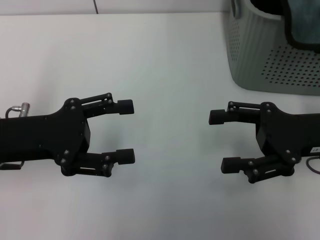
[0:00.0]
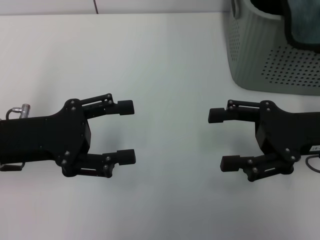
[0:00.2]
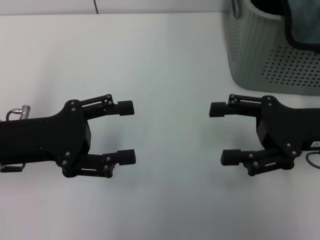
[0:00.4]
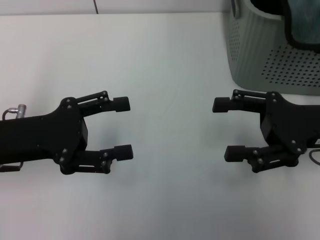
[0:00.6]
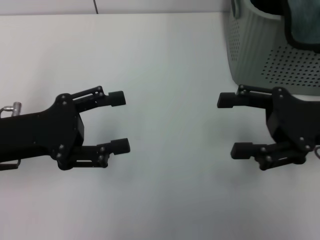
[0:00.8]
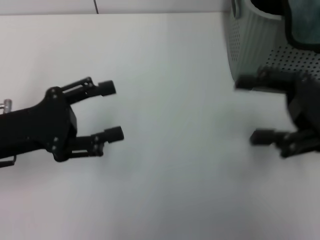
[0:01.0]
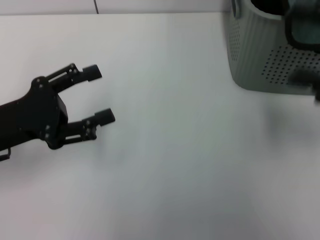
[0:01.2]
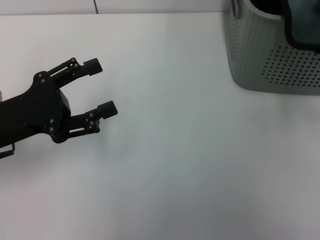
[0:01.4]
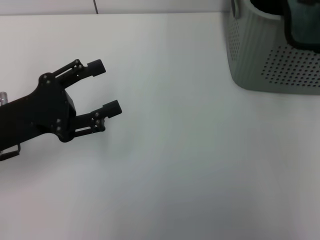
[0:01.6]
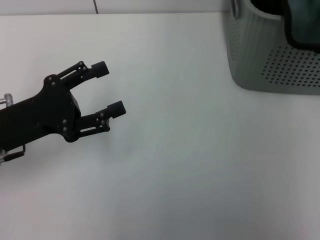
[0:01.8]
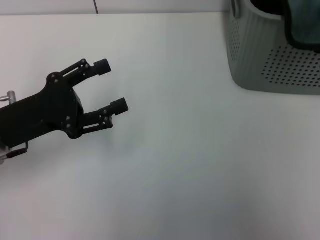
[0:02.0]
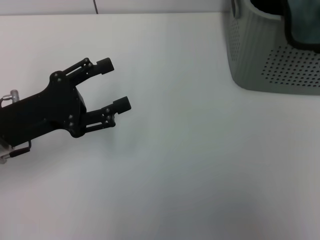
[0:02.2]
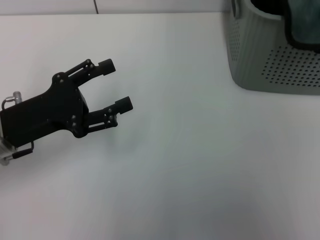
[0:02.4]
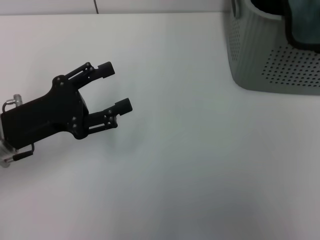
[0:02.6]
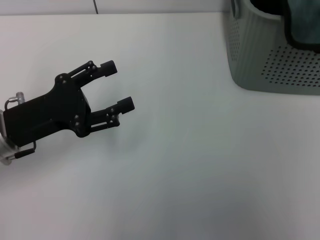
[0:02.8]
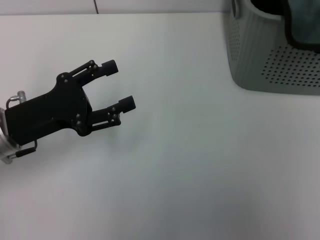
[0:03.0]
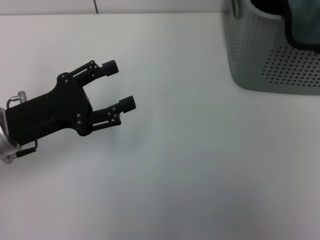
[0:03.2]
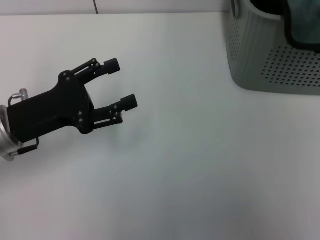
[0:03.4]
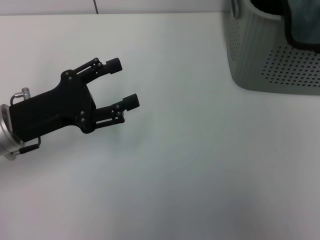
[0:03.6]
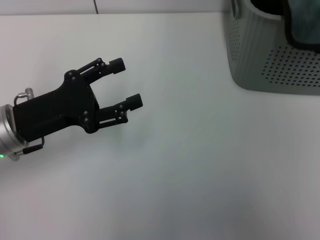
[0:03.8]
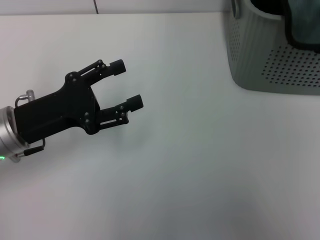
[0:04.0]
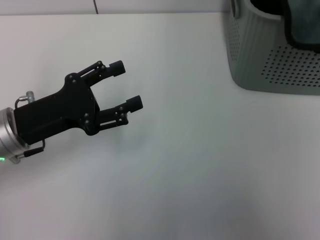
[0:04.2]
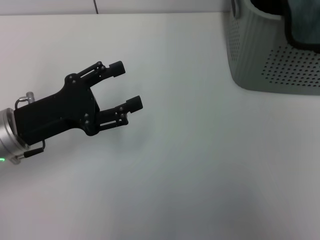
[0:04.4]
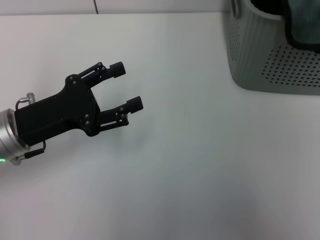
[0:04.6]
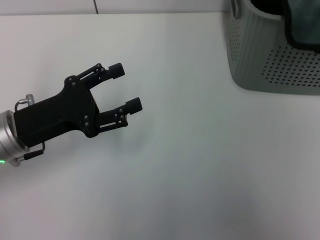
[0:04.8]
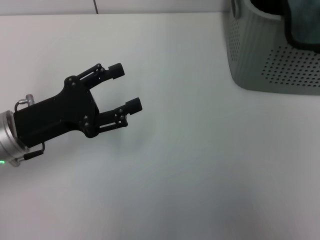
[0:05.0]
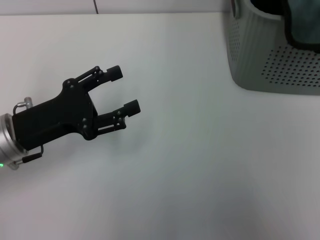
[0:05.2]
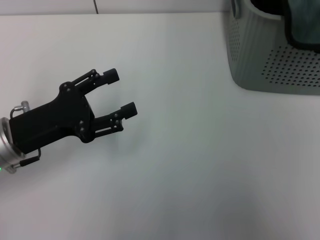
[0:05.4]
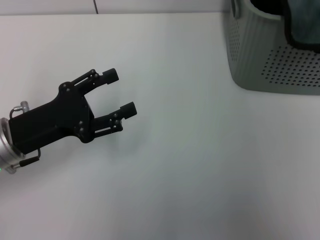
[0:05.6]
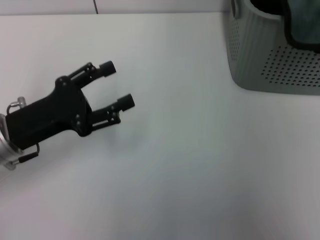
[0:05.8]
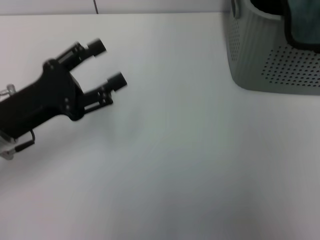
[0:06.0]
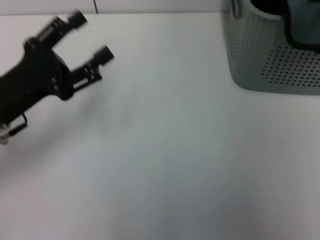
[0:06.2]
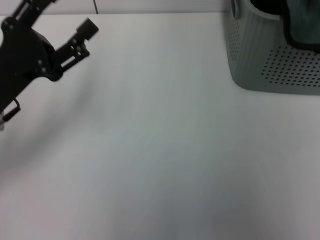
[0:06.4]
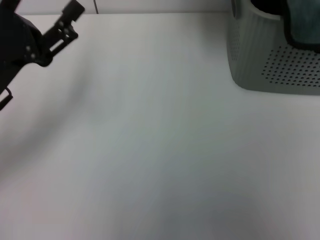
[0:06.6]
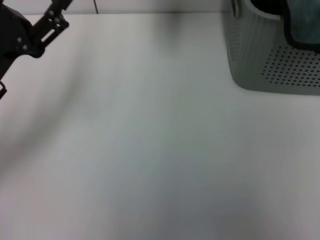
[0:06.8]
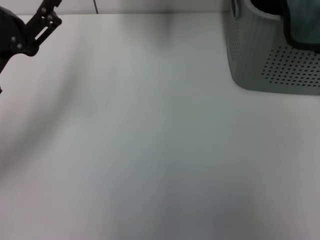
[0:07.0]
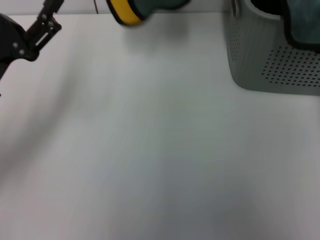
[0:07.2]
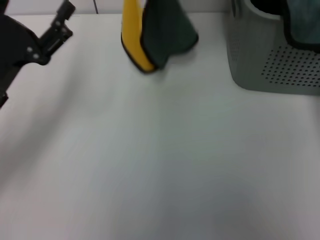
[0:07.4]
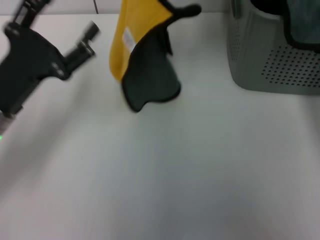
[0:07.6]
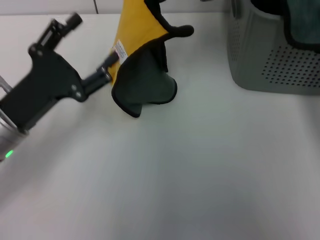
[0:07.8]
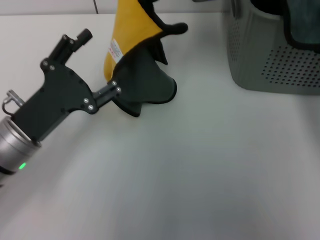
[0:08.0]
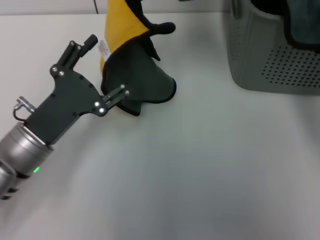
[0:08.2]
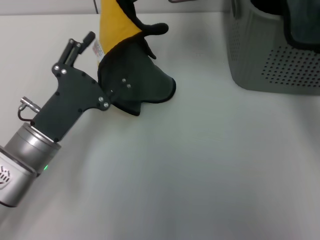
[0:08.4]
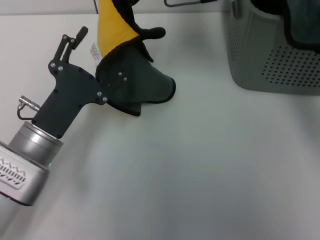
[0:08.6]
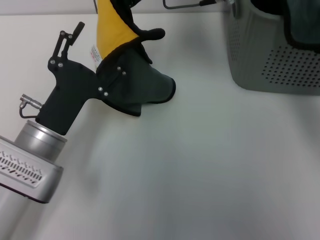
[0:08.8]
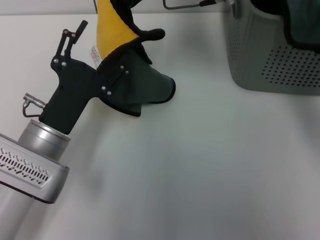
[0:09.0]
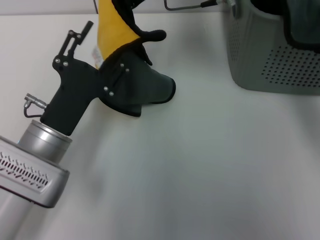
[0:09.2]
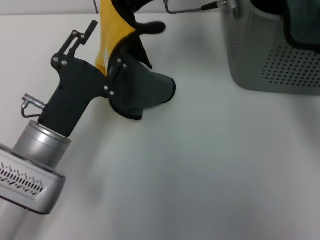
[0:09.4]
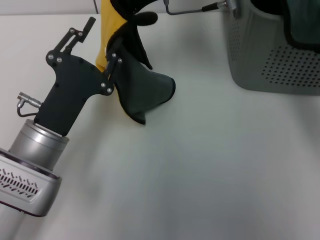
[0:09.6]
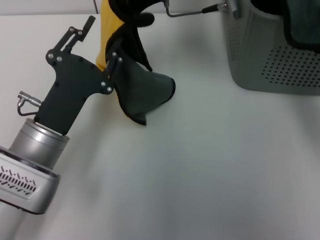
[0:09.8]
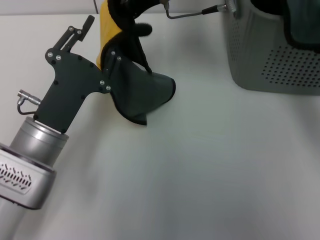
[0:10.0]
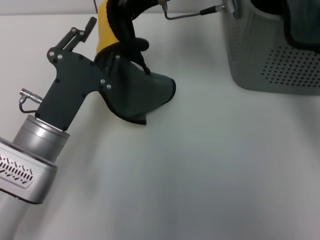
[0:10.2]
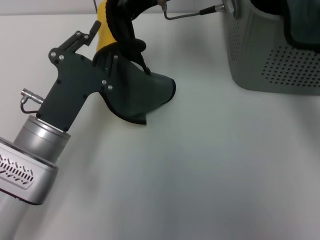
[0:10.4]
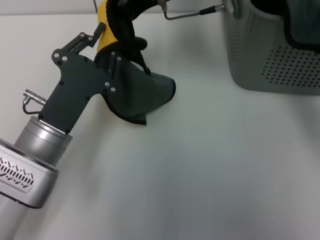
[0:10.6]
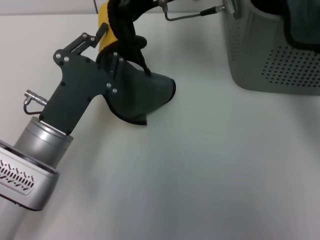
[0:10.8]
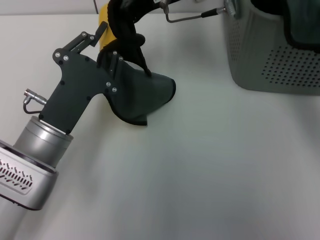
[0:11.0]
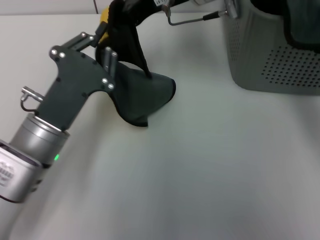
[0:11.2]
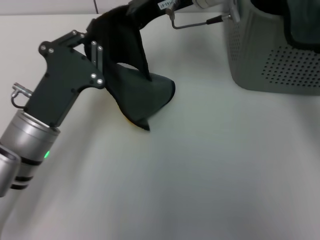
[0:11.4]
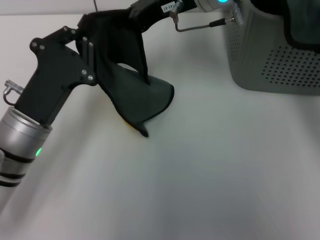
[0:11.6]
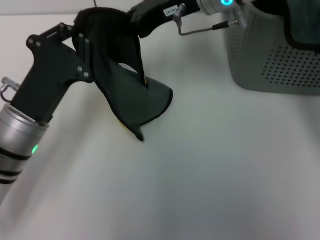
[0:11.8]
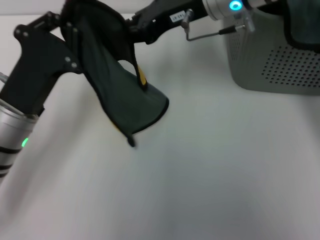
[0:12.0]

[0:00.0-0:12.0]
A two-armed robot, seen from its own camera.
Task of the whole recording: pick up the towel from the storage box and lay it flat on the table.
Step, 0:00.0 to 0:05.2: Pick up a towel with the right gripper.
0:00.0 to 0:01.6: The right gripper moves upward and to the right, about 15 cm.
0:01.6 to 0:03.0: The right gripper heads upward, covering approximately 10 cm.
0:03.0 to 0:04.4: The right gripper travels downward by roughly 5 cm.
0:04.4 to 0:06.0: The right gripper is displaced upward by about 5 cm, and closes its fingers.
0:06.0 to 0:07.6: The right gripper shifts roughly 25 cm to the left.
0:07.6 to 0:09.0: The left gripper travels to the right by approximately 5 cm. Meanwhile the right gripper changes place by roughly 5 cm.
0:09.0 to 0:10.4: The left gripper closes.
0:10.4 to 0:12.0: The left gripper closes up.

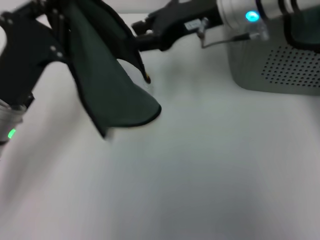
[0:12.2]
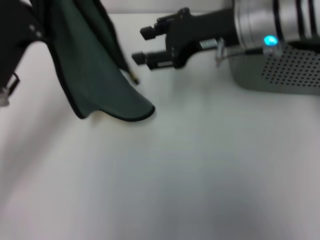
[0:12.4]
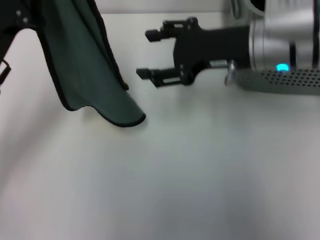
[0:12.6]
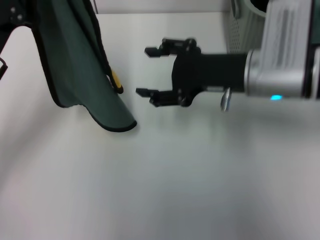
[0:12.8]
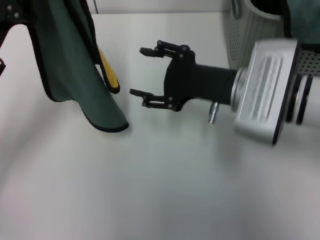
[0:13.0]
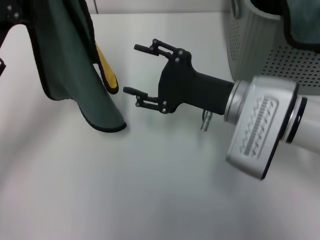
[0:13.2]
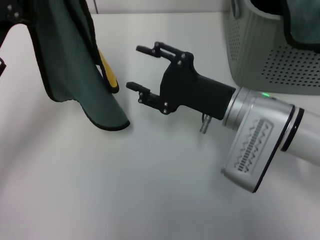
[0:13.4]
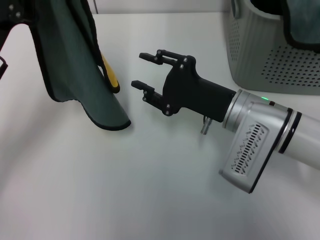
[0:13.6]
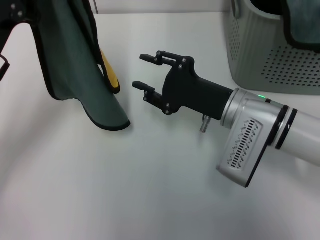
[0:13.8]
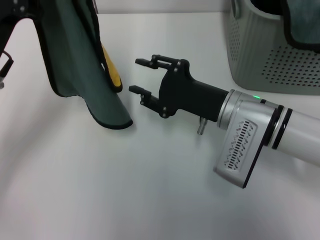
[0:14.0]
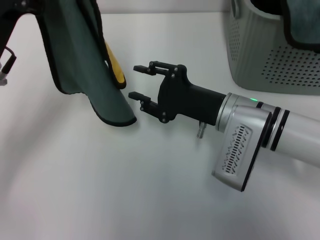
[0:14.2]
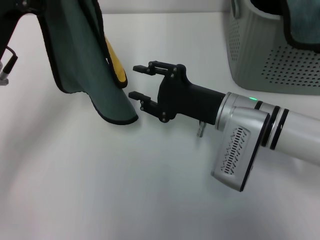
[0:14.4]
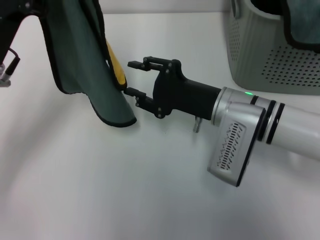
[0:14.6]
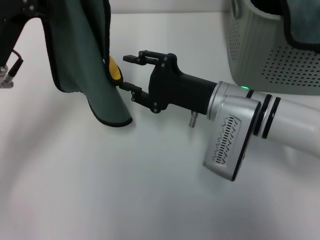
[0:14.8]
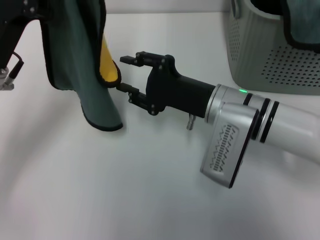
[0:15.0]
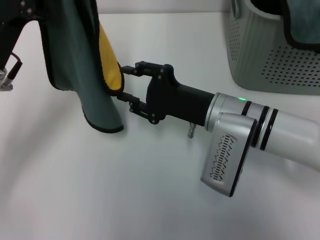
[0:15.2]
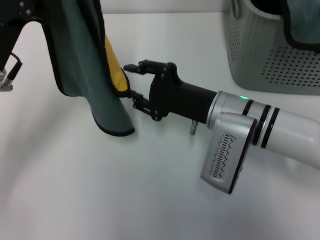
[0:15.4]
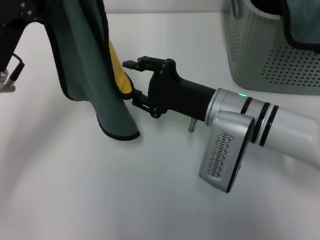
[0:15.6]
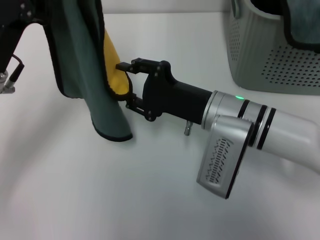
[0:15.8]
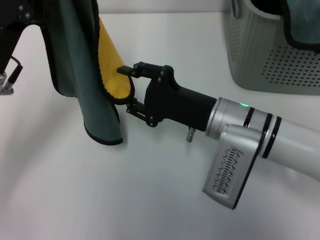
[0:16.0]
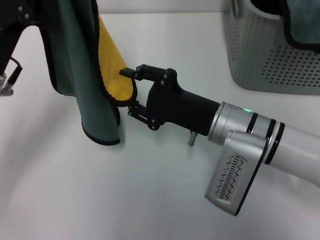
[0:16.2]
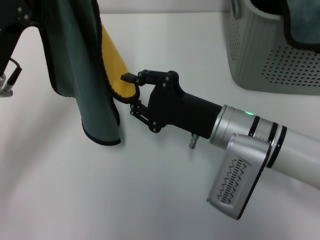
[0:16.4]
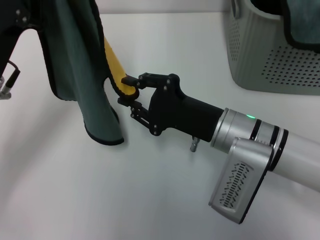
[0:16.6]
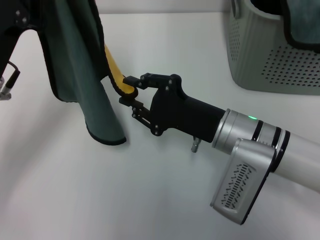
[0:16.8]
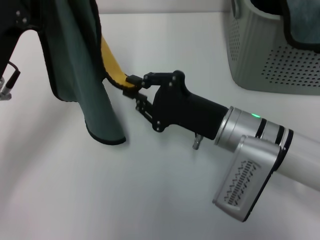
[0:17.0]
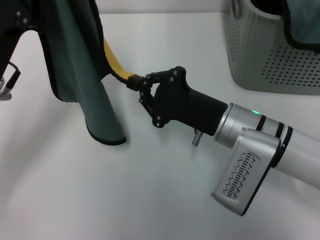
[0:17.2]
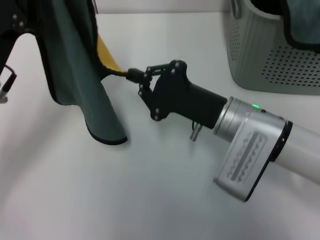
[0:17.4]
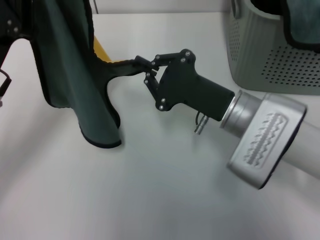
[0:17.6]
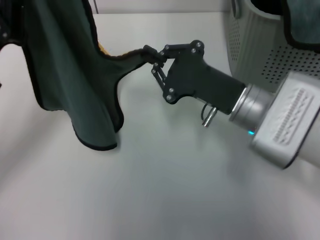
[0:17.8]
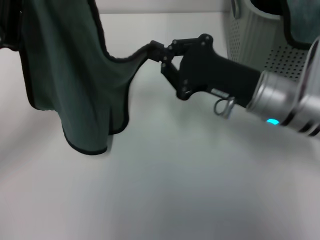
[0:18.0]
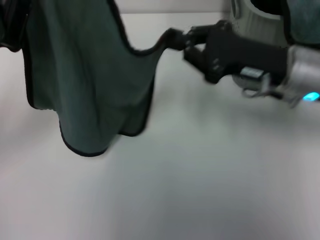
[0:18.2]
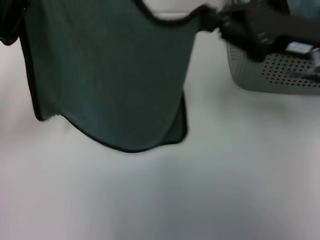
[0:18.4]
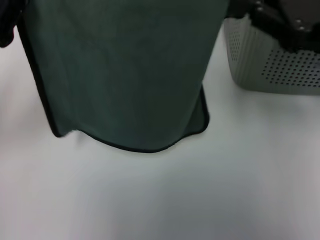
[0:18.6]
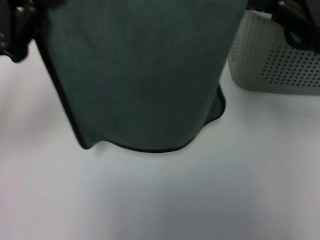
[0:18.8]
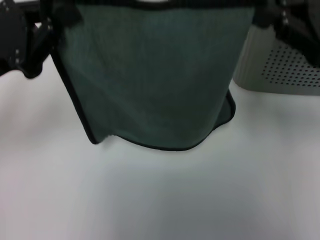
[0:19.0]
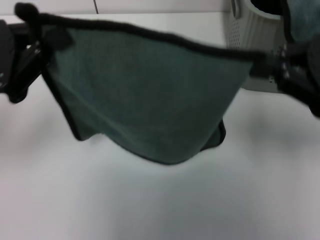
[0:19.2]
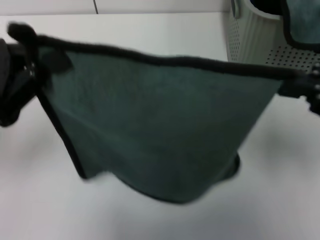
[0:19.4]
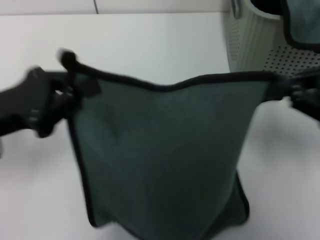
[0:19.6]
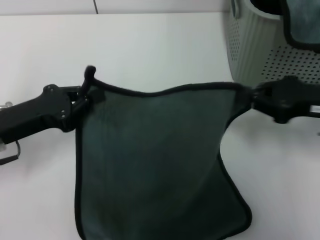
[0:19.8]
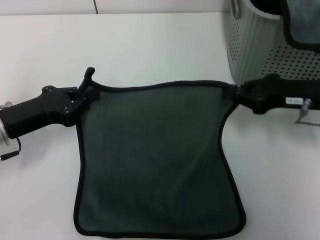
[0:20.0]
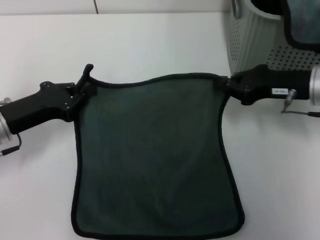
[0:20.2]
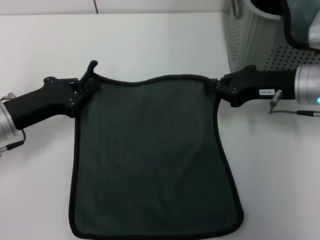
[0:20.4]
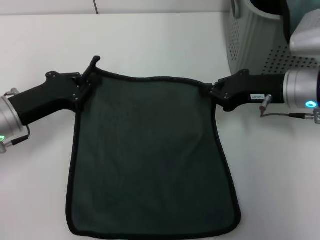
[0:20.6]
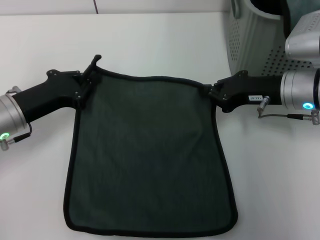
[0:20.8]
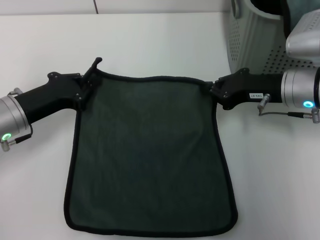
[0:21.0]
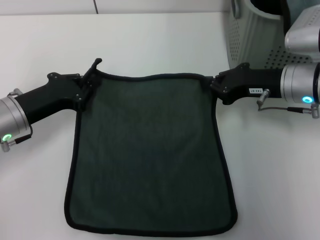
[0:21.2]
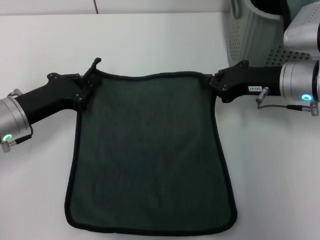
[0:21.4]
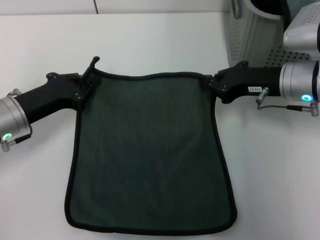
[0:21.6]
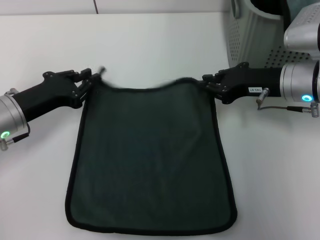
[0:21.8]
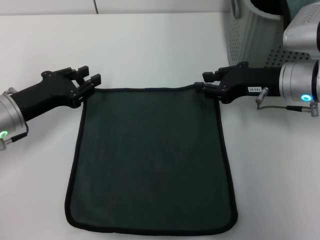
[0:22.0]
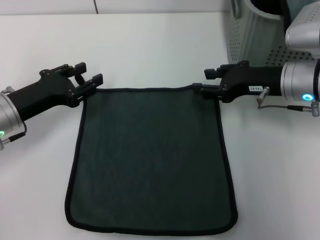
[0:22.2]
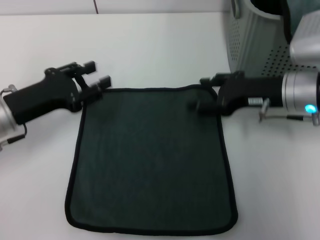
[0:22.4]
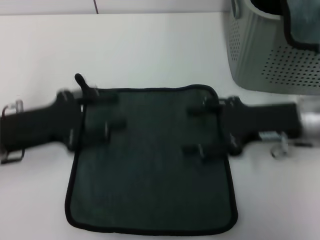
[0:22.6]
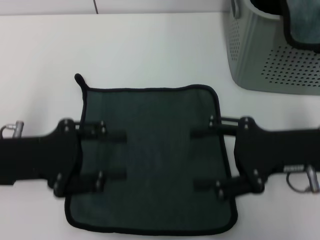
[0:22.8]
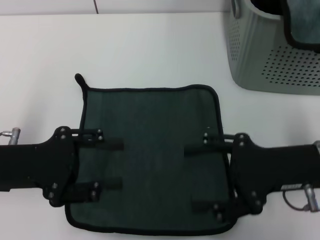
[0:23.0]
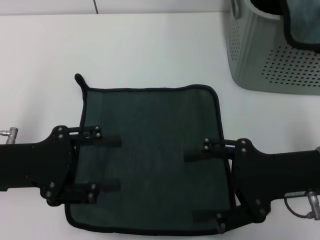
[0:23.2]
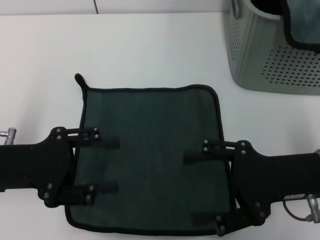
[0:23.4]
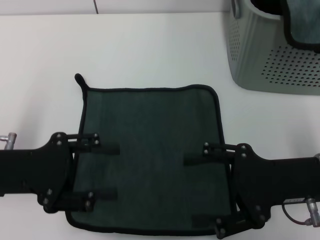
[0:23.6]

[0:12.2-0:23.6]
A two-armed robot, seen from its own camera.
Task of the whole recording: pick up the towel from the storage box and lay it flat on the table.
Step, 0:12.4 to 0:22.0: Pick up a towel with the left gripper.
0:12.2 to 0:13.6: The right gripper is displaced downward and backward by some 15 cm, and opens up.
0:13.6 to 0:15.0: There are only small adjustments of the grippers.
0:16.4 to 0:17.8: The right gripper closes up.
0:17.8 to 0:19.4: The right gripper moves to the right, upward and backward, roughly 20 cm; the left gripper ends up roughly 5 cm from where it was.
0:19.4 to 0:20.8: The right gripper is displaced forward, downward and to the left by roughly 20 cm. Meanwhile the left gripper moves downward and forward, roughly 10 cm.
0:20.8 to 0:22.2: The right gripper opens its fingers.
0:22.2 to 0:23.6: The left gripper travels backward by some 10 cm, and opens up; the right gripper is displaced backward by approximately 10 cm, and opens its fingers.
